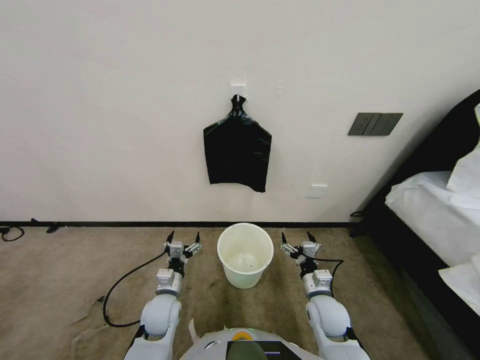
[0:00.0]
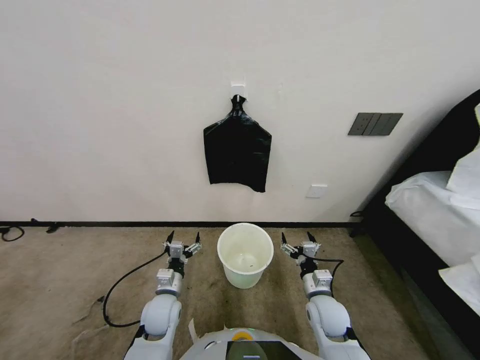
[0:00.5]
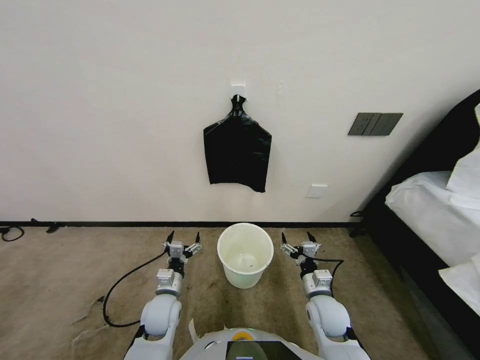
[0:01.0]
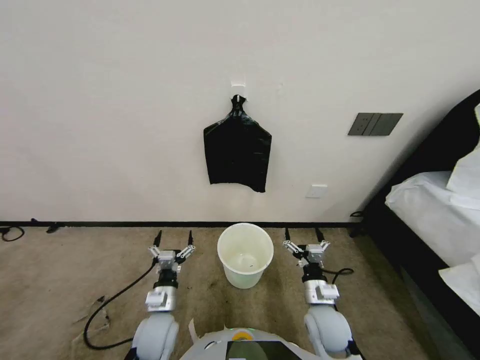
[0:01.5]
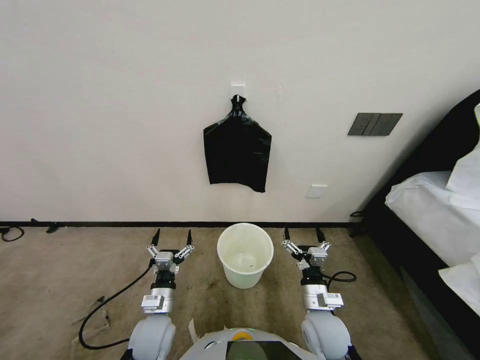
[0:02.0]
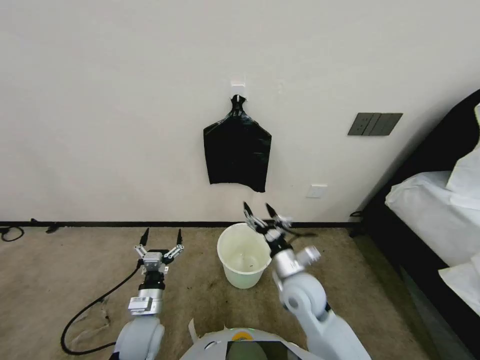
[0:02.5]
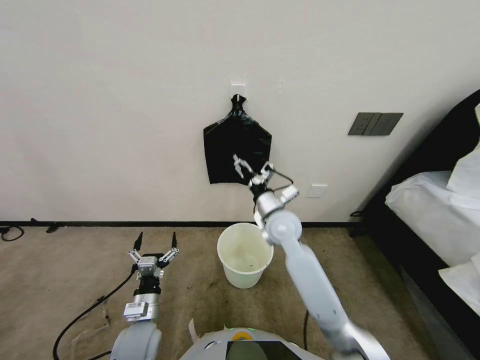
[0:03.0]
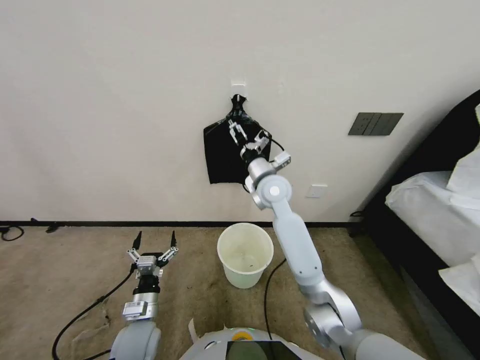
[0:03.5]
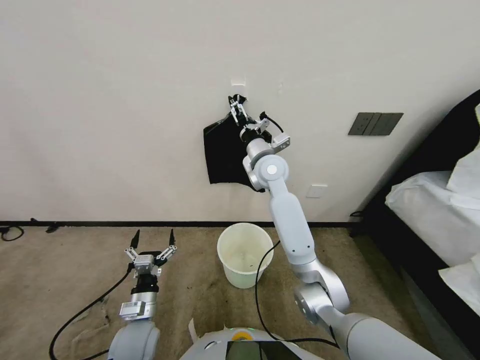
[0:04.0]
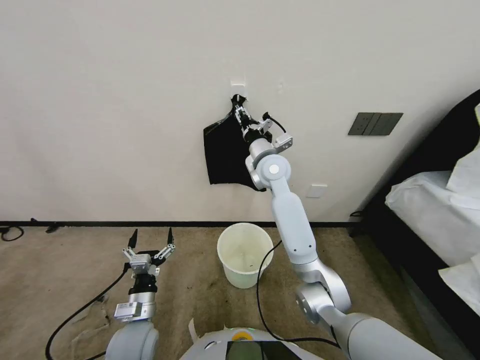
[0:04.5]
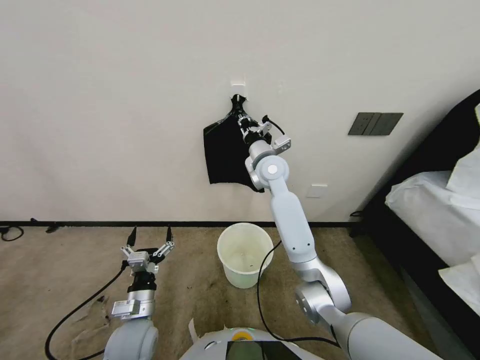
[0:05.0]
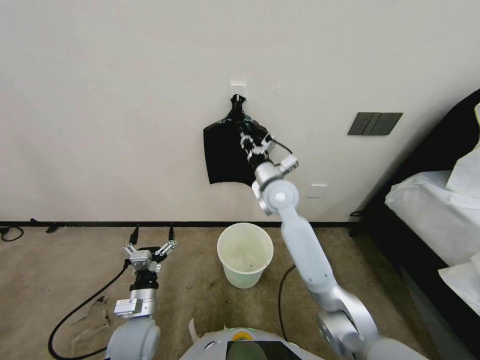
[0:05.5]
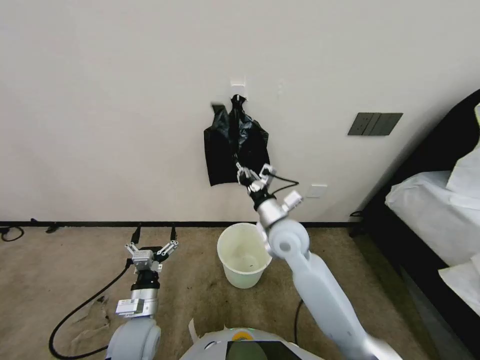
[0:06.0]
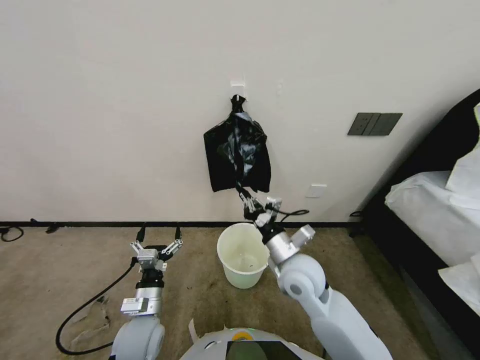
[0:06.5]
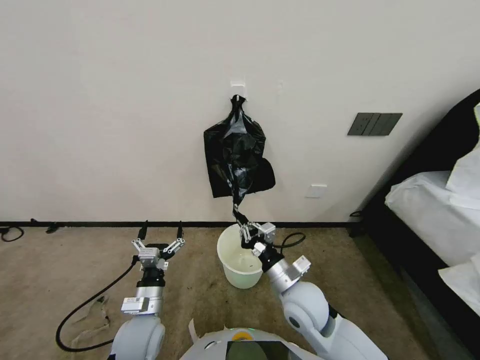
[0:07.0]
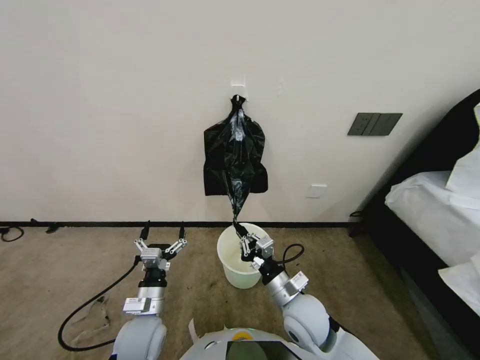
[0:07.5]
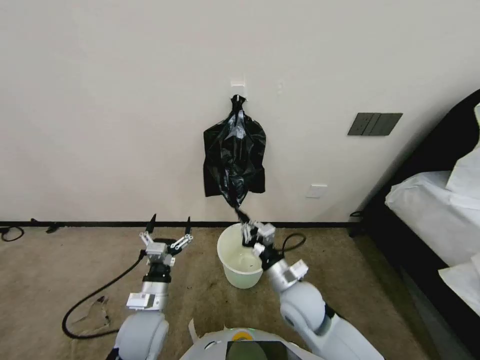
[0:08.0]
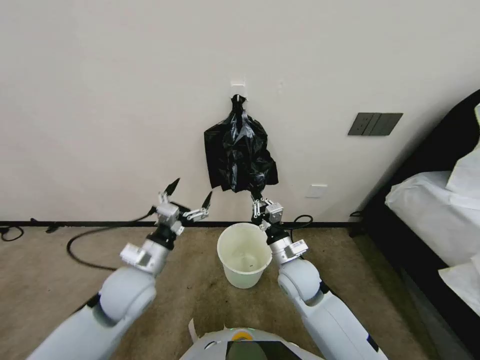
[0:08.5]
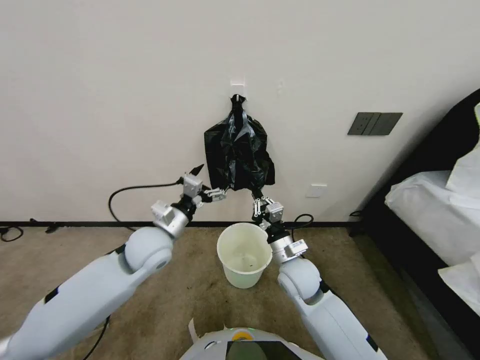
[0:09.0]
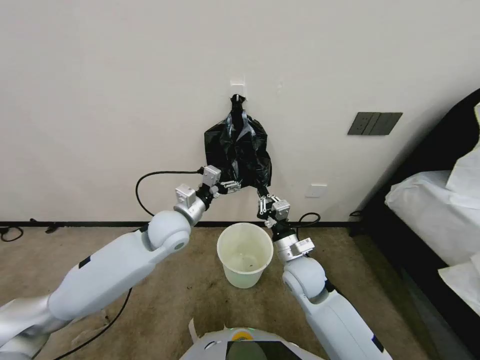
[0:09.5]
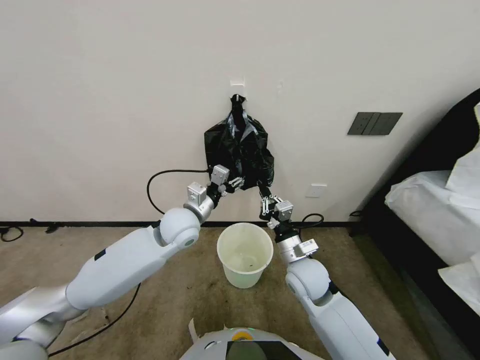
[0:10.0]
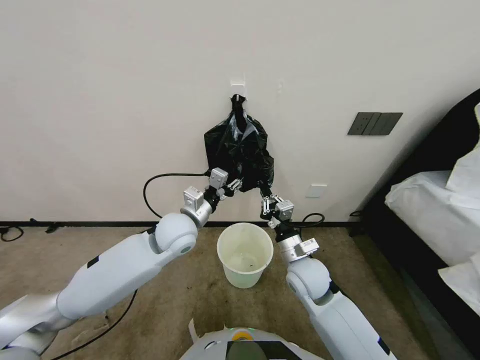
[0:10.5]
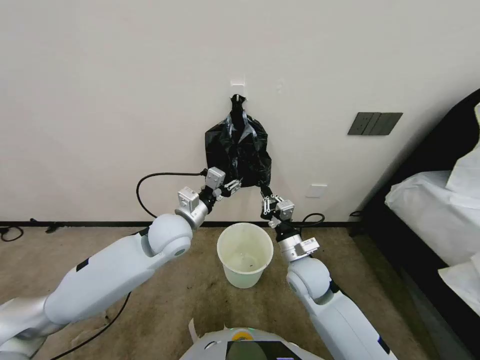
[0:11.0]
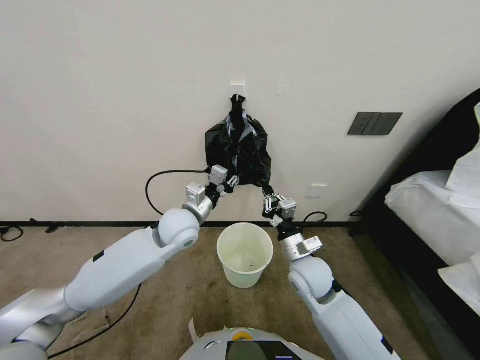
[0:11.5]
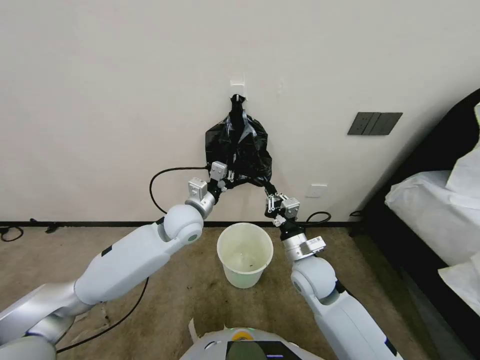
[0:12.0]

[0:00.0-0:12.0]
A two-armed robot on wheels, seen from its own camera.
Task of the whole recording: Place a trash bag onto the trash bin.
0:02.0 to 0:04.0: The right gripper heads forward, upward and to the left, covering approximately 40 cm.
0:04.0 to 0:06.0: The right gripper is displaced backward and downward by approximately 15 cm, and closes up.
0:06.0 to 0:08.0: The right gripper travels backward and downward by about 20 cm.
0:08.0 to 0:10.0: The right gripper shifts some 5 cm forward, while the left gripper heads forward and upward, covering some 25 cm.
0:10.0 to 0:12.0: The left gripper closes its fingers.

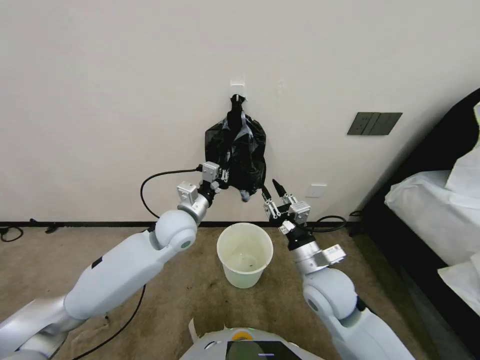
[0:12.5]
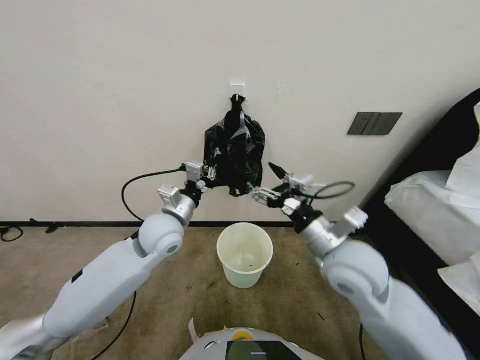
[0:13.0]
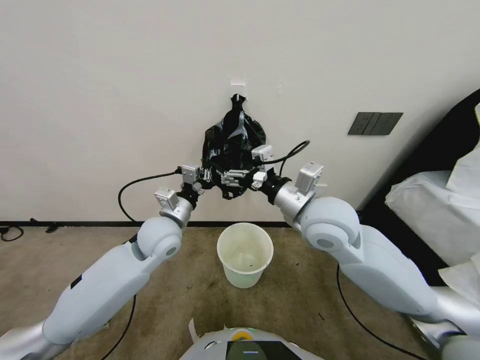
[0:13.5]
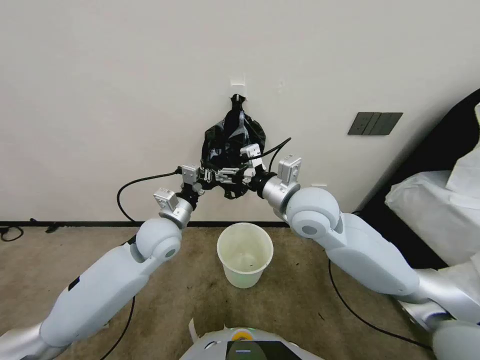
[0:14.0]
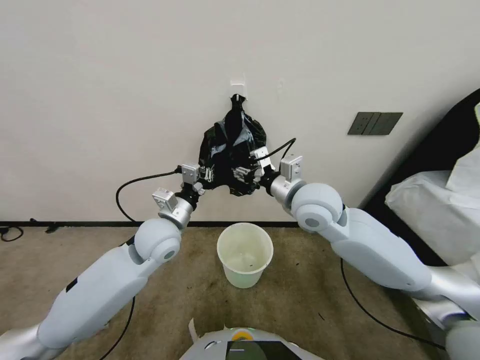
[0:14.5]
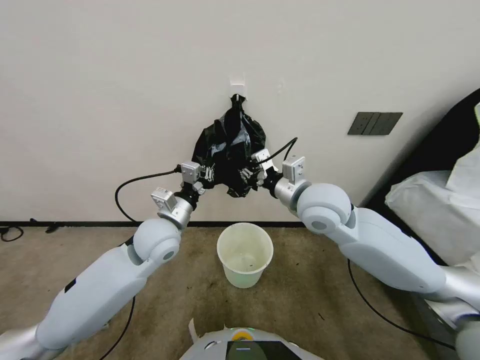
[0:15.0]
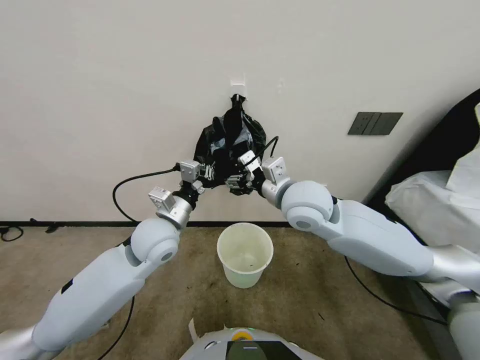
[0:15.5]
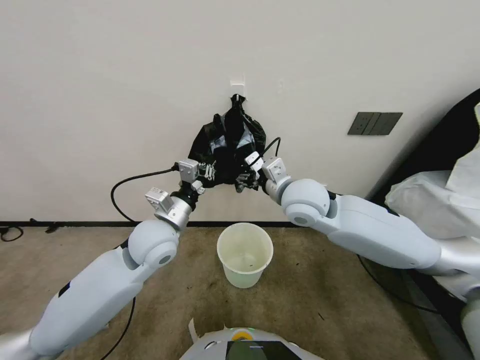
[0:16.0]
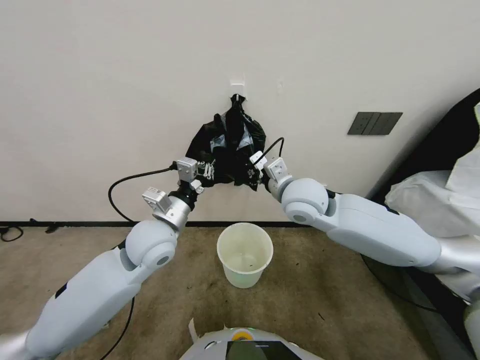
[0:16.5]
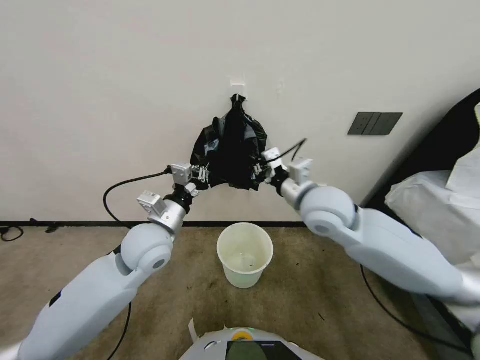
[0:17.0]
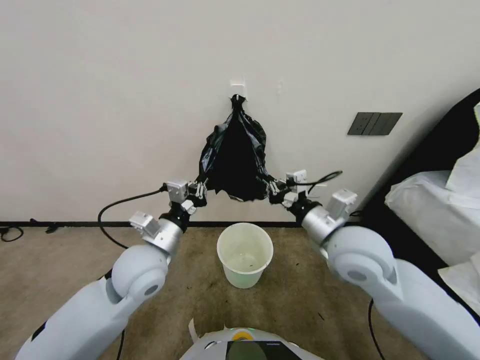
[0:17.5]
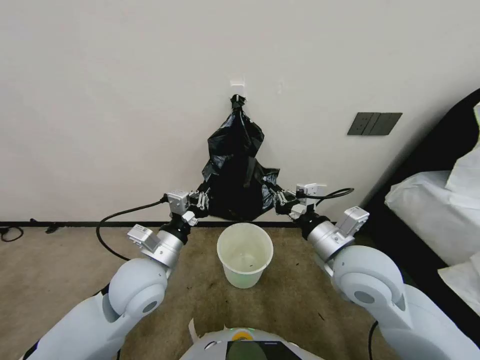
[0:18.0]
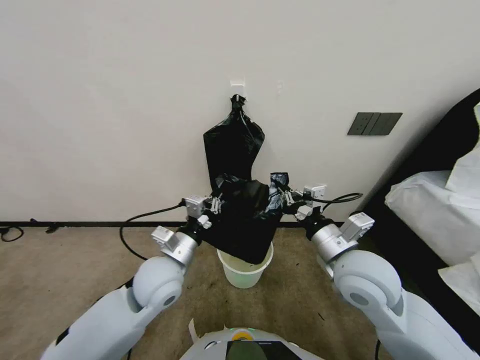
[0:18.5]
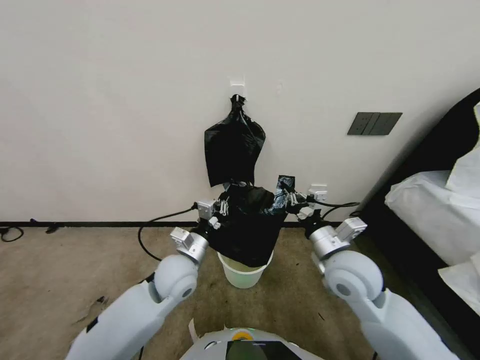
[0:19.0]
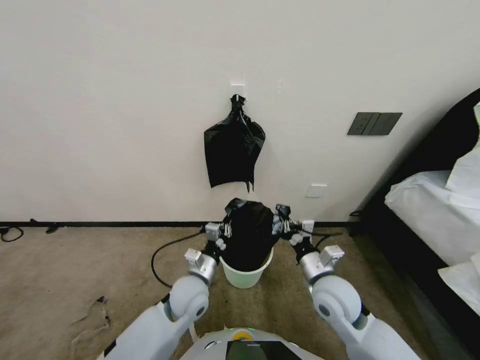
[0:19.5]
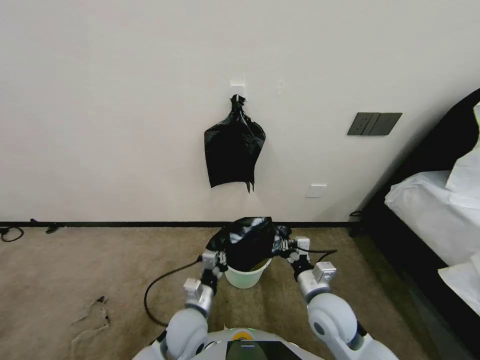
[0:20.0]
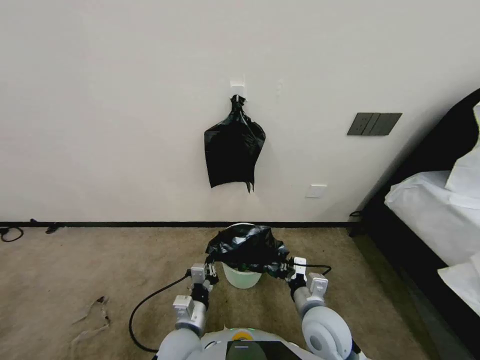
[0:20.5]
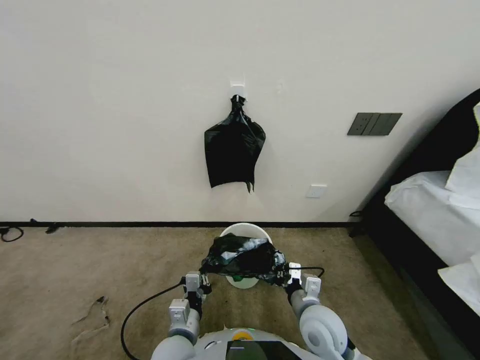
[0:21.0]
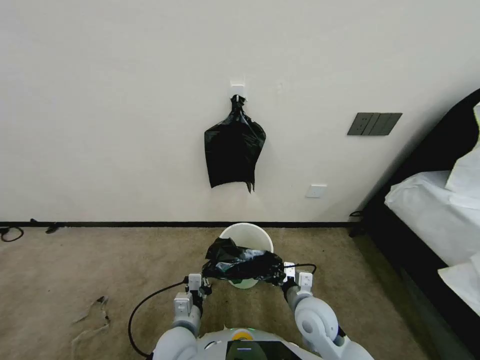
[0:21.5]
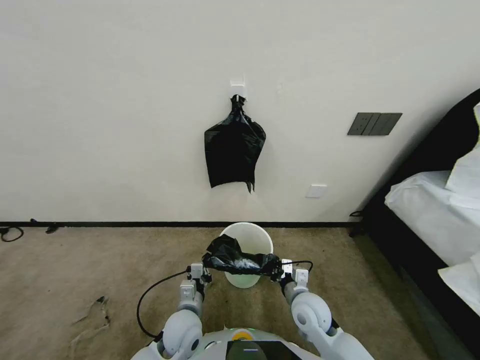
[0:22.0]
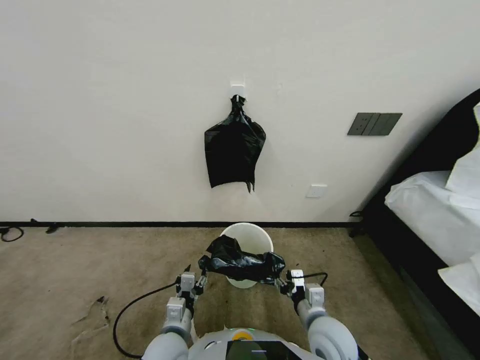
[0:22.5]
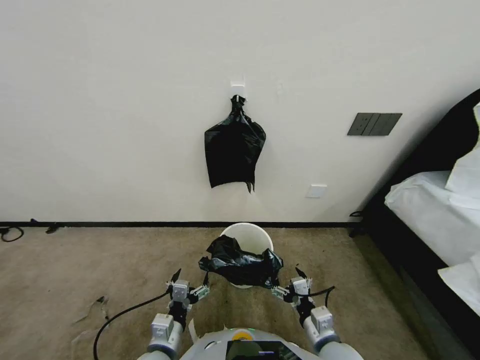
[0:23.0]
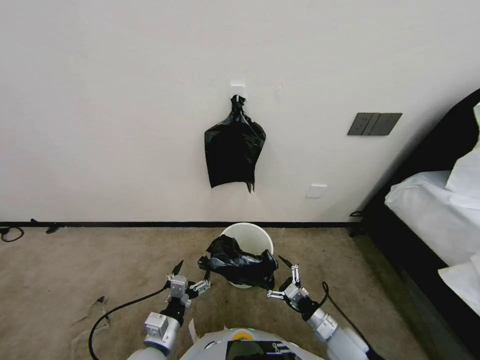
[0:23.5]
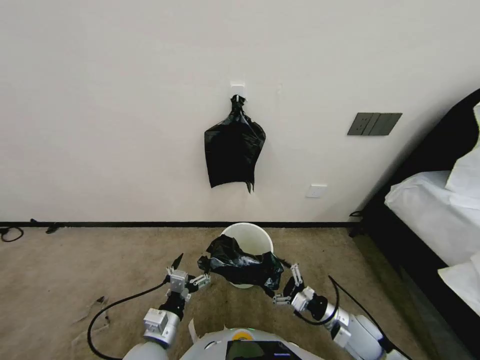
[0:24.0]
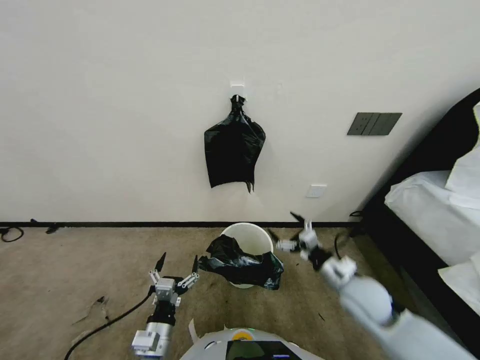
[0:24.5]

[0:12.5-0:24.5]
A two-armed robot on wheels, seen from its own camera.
Task of the whole recording: Place a trash bag onto the trash bin.
0:12.5 to 0:14.5: The left gripper ends up some 5 cm from where it was. Meanwhile the right gripper heads upward and forward, covering roughly 20 cm, and opens up.
0:14.5 to 0:16.5: The right gripper closes.
0:16.5 to 0:18.5: The left gripper travels backward and downward by approximately 10 cm. Meanwhile the right gripper is displaced backward and to the right by some 15 cm.
0:18.5 to 0:20.5: The right gripper travels downward by about 15 cm; the left gripper travels downward and backward by approximately 20 cm.
0:20.5 to 0:22.5: The left gripper opens up; the right gripper opens.
0:22.5 to 0:24.5: The right gripper goes approximately 10 cm to the right, and opens up; the left gripper changes place by some 5 cm, and opens up.

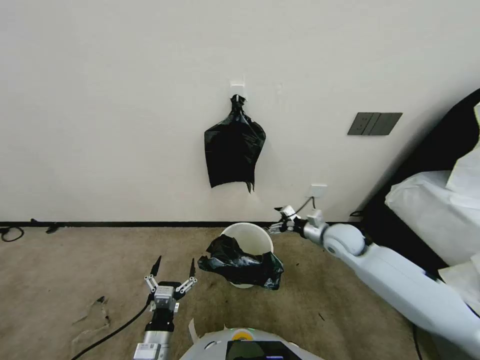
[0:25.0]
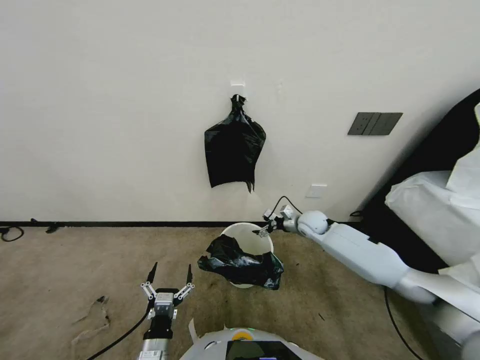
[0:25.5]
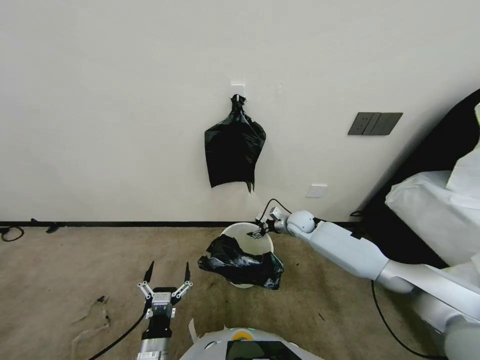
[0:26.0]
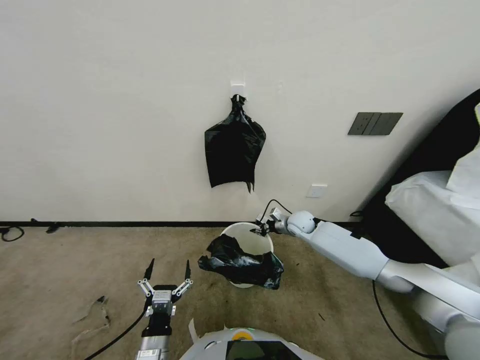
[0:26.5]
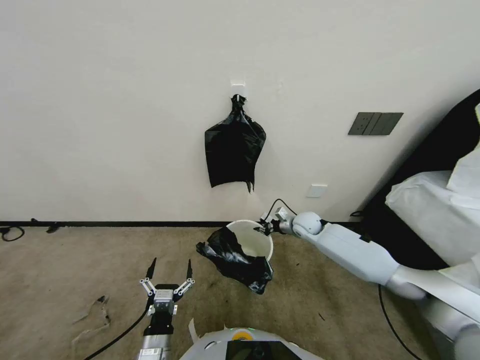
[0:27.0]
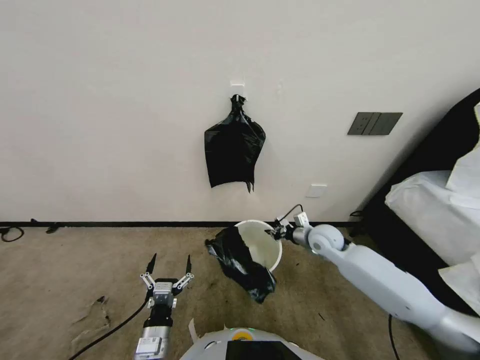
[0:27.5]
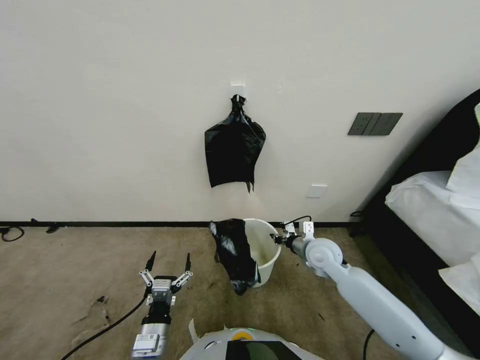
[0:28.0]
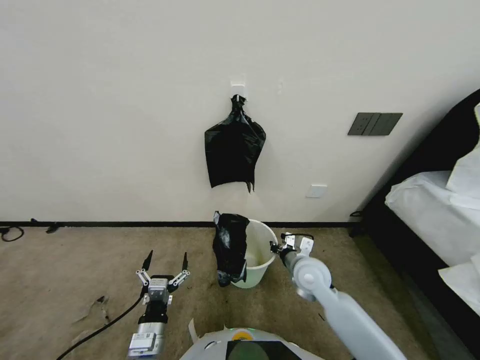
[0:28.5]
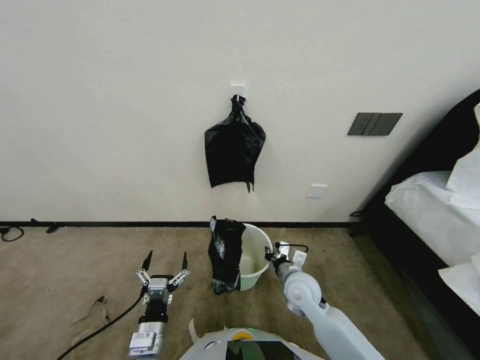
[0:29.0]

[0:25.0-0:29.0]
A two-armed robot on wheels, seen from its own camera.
Task of the whole recording: Place a trash bag onto the trash bin.
0:25.0 to 0:27.0: The right gripper goes about 15 cm forward and downward, and closes up.
0:27.0 to 0:29.0: The right gripper heads backward, covering about 20 cm.
